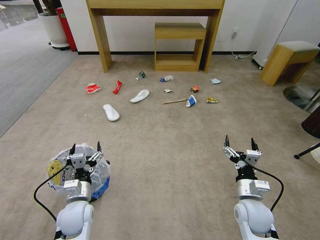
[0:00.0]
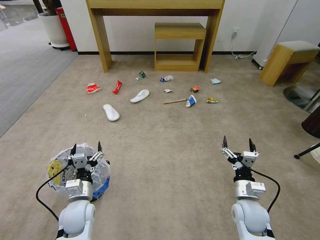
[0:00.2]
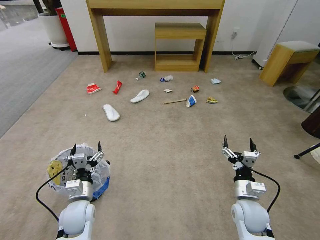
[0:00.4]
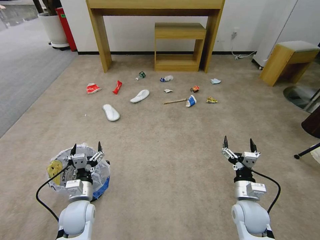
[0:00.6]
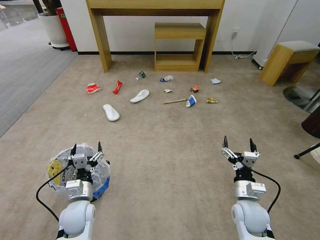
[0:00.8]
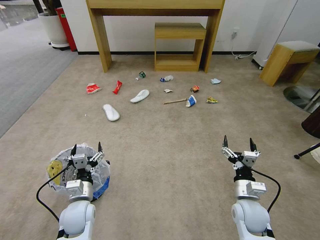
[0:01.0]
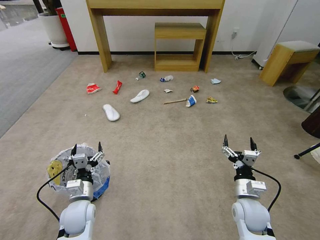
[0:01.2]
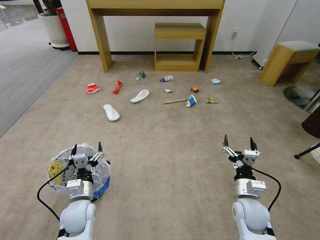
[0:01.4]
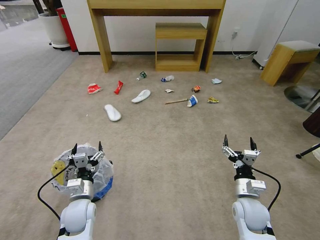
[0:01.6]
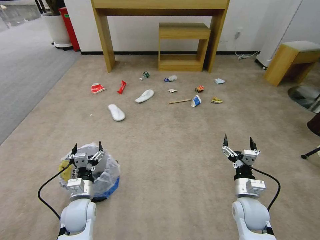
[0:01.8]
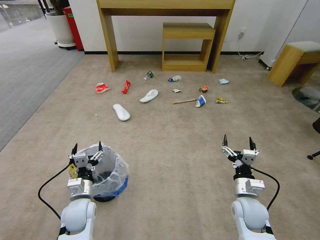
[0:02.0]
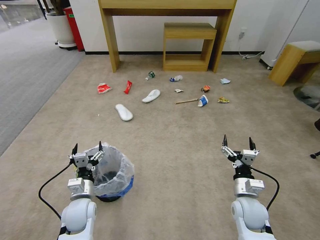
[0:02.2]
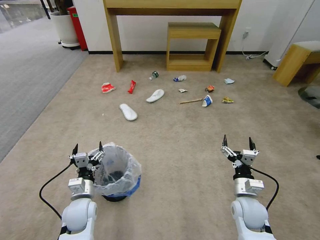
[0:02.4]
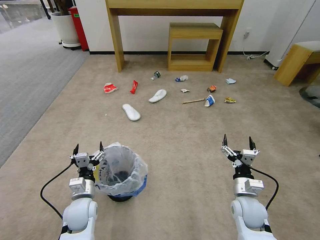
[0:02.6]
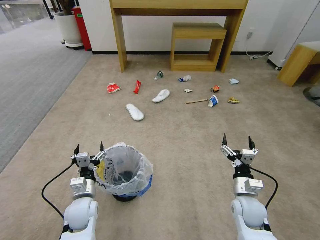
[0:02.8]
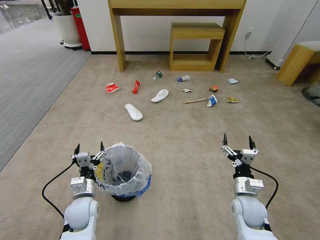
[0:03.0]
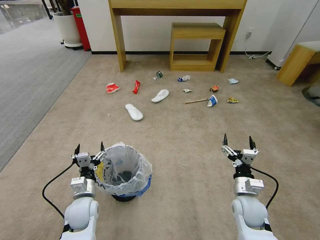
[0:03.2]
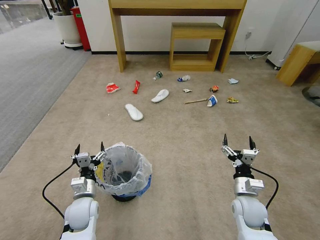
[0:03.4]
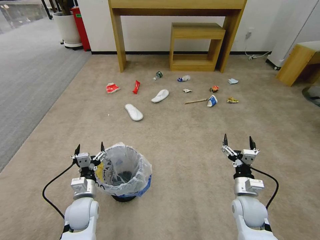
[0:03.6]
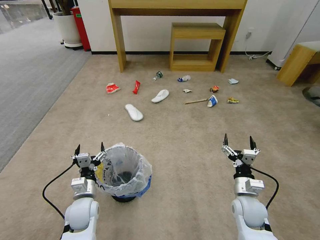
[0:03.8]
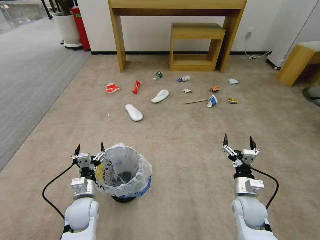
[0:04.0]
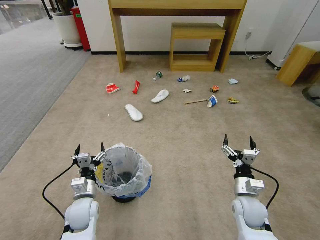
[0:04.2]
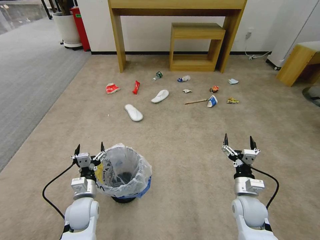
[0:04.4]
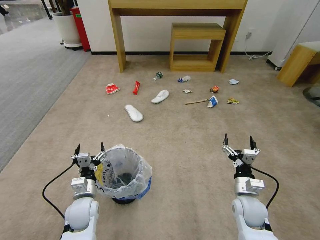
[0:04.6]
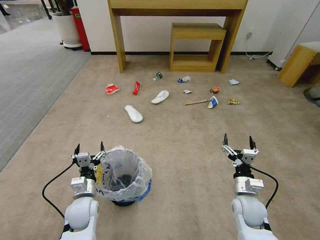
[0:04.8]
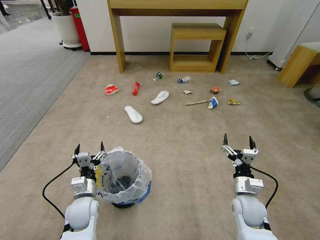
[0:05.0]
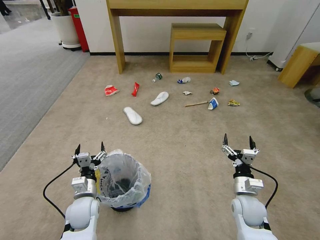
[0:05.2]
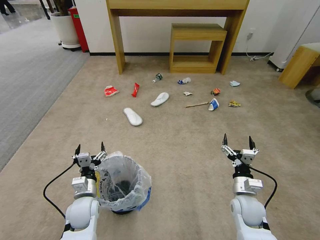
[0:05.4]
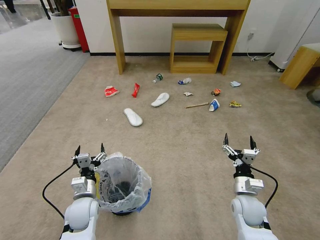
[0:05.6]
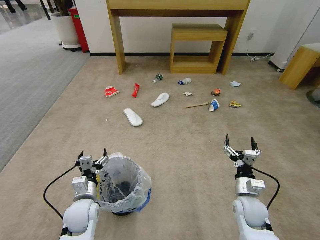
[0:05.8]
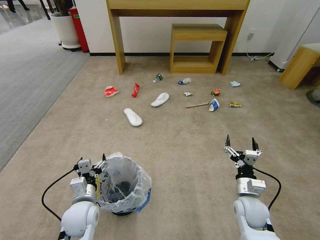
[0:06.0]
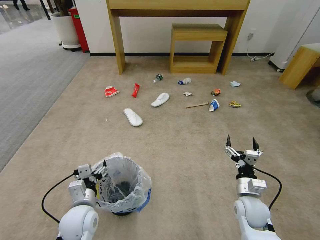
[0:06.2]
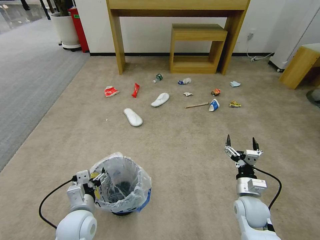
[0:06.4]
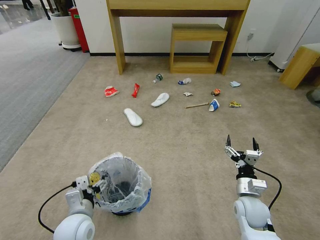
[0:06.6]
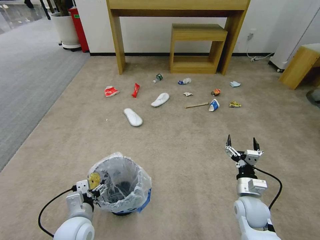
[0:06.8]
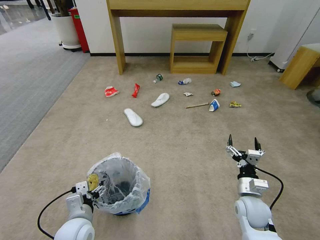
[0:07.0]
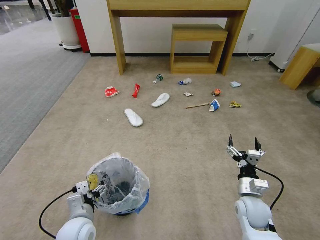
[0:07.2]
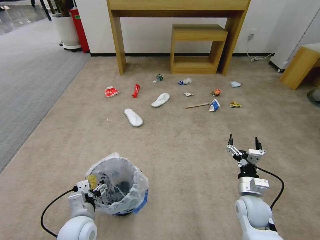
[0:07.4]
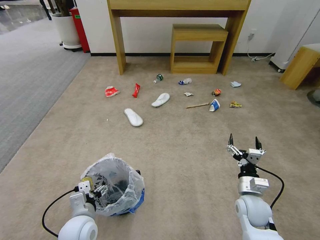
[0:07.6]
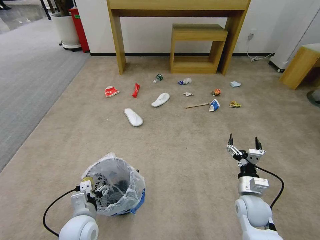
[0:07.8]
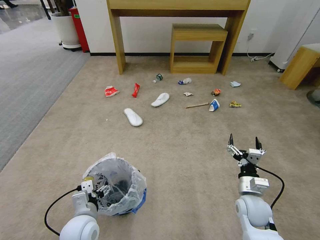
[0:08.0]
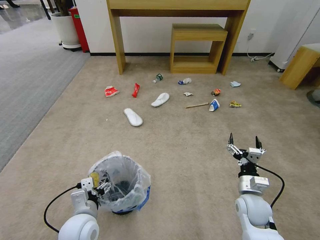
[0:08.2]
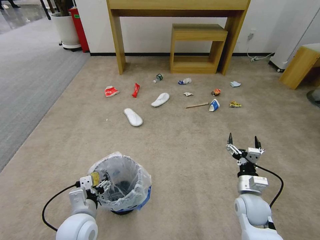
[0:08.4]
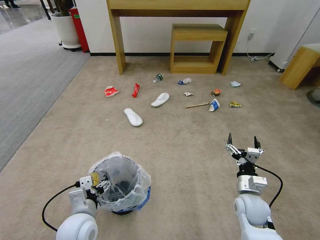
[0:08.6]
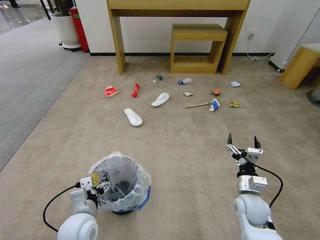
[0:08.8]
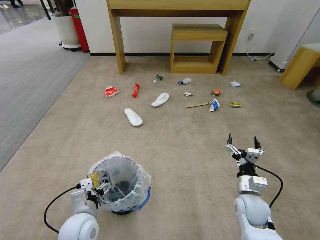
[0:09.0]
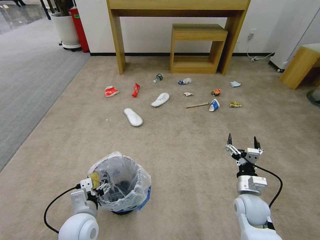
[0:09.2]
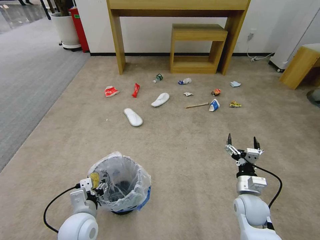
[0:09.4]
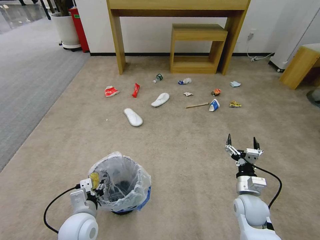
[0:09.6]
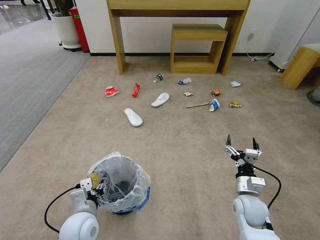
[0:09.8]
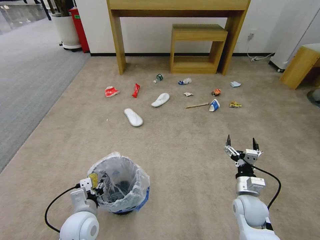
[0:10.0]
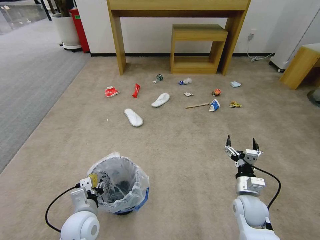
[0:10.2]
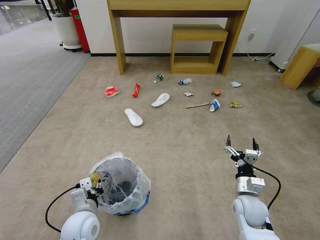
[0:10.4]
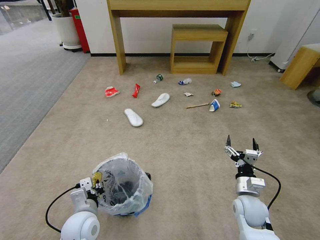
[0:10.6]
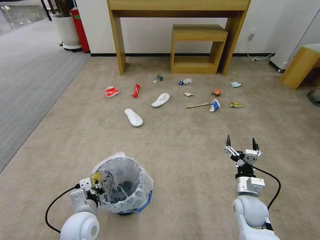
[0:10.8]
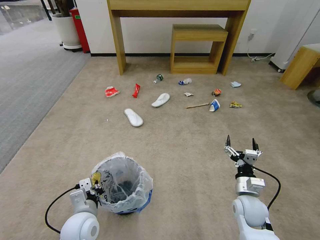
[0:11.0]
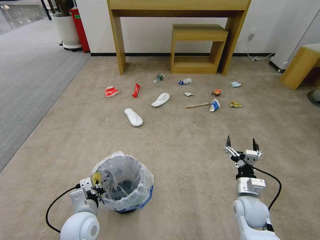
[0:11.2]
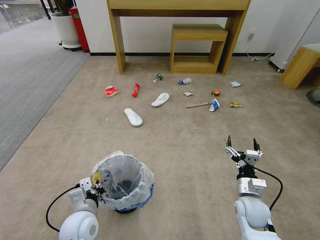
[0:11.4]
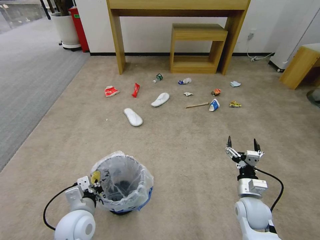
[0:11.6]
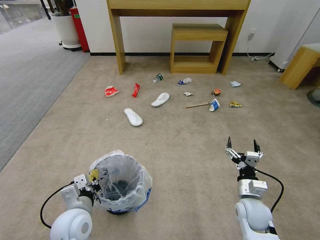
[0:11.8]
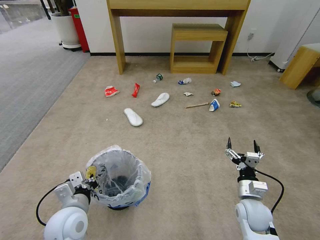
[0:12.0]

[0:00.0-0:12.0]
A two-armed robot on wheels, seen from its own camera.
Task of the whole recording: Pick up the trash bin and place the garbage on the floor into it.
0:03.0 to 0:04.4: The two grippers keep their place.
0:04.4 to 0:06.0: The grippers stay close to where they were, moving slightly.
0:07.6 to 0:09.0: The grippers move only a little.
0:09.0 to 0:10.4: The left gripper closes its fingers.
0:10.4 to 0:12.0: The left gripper moves upward, about 5 cm.

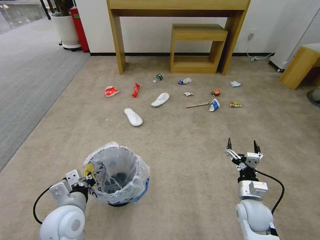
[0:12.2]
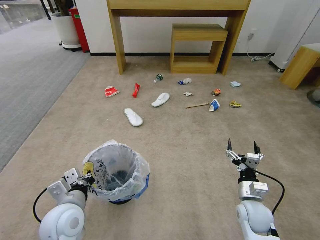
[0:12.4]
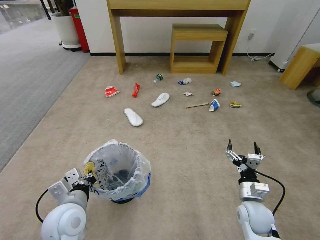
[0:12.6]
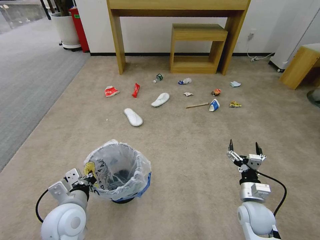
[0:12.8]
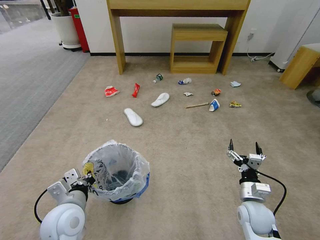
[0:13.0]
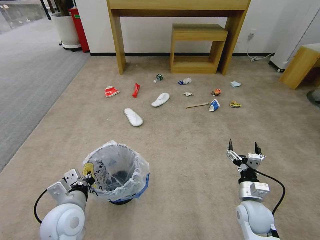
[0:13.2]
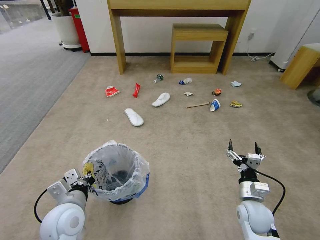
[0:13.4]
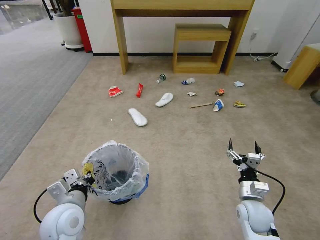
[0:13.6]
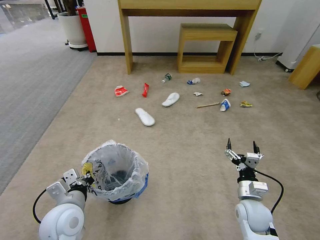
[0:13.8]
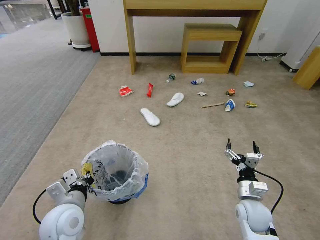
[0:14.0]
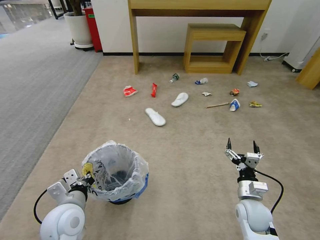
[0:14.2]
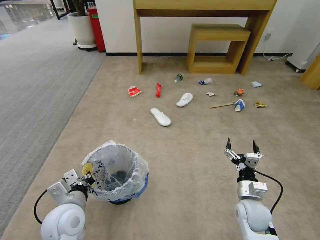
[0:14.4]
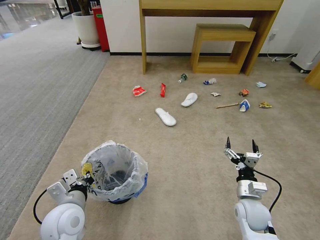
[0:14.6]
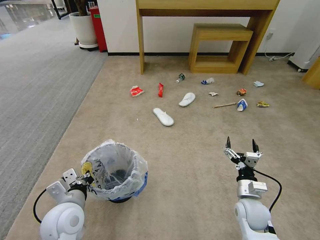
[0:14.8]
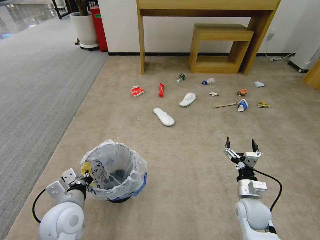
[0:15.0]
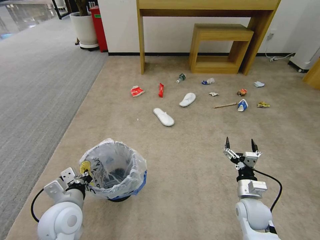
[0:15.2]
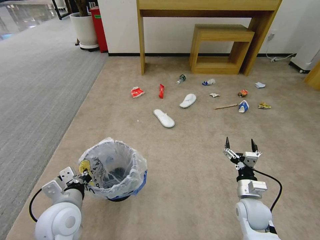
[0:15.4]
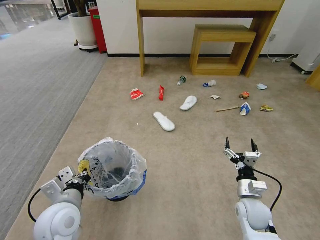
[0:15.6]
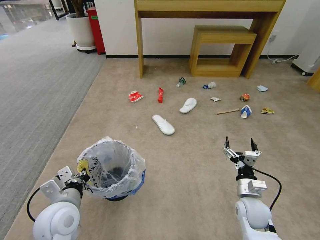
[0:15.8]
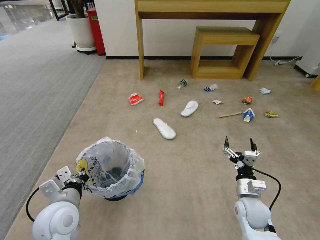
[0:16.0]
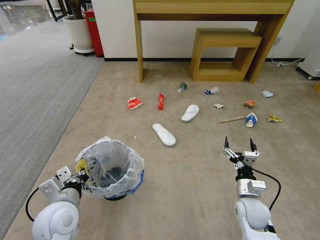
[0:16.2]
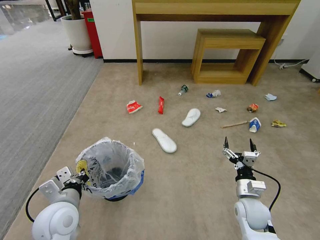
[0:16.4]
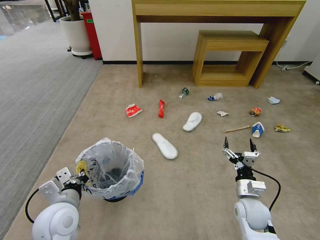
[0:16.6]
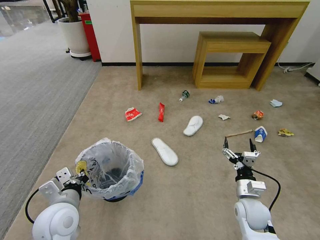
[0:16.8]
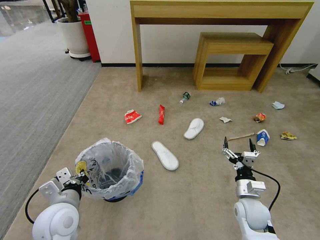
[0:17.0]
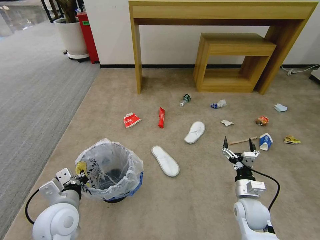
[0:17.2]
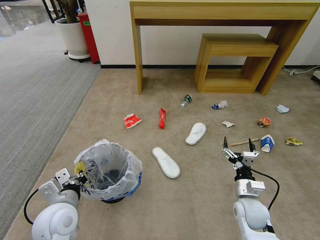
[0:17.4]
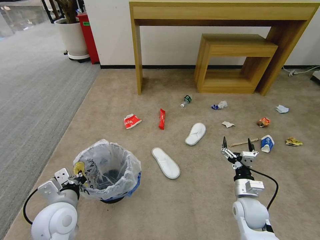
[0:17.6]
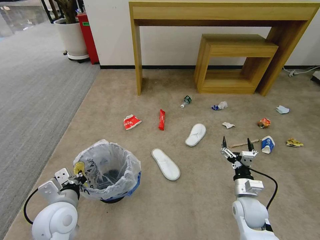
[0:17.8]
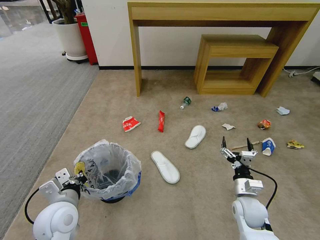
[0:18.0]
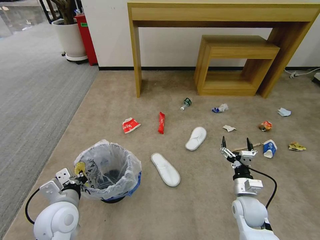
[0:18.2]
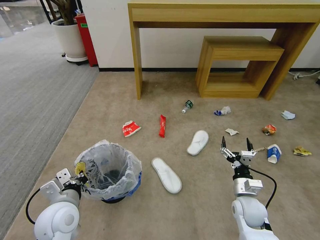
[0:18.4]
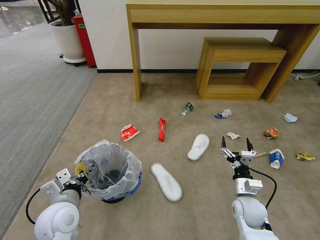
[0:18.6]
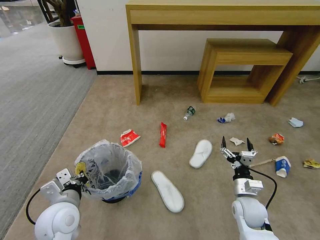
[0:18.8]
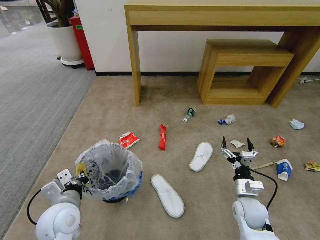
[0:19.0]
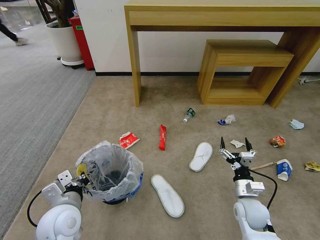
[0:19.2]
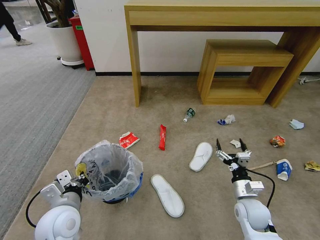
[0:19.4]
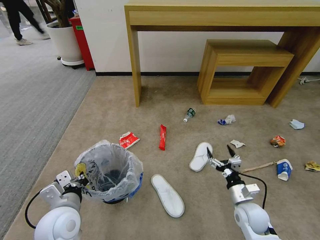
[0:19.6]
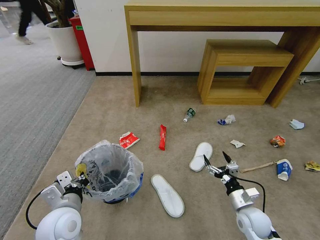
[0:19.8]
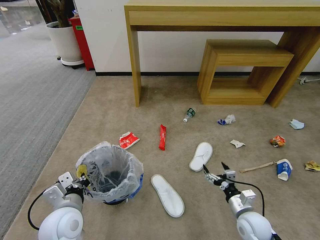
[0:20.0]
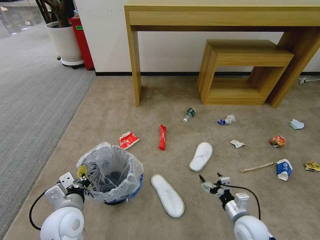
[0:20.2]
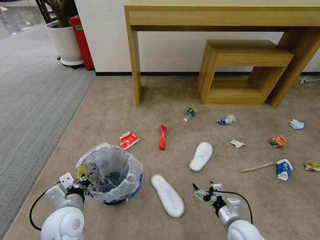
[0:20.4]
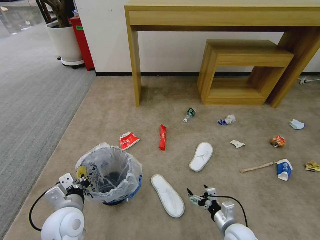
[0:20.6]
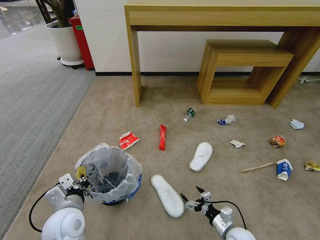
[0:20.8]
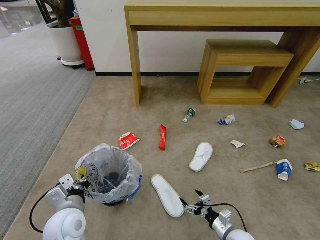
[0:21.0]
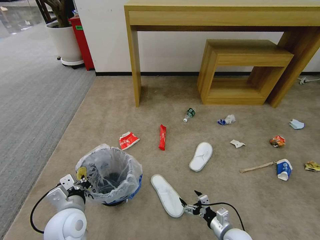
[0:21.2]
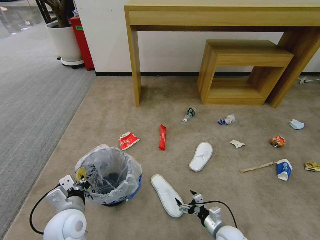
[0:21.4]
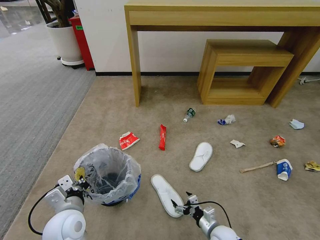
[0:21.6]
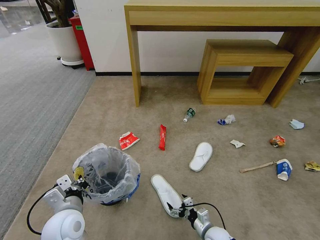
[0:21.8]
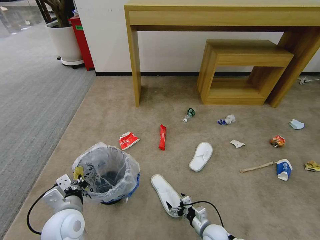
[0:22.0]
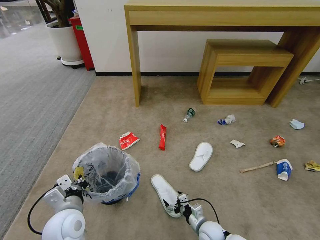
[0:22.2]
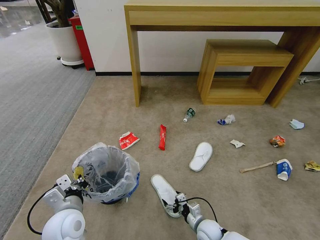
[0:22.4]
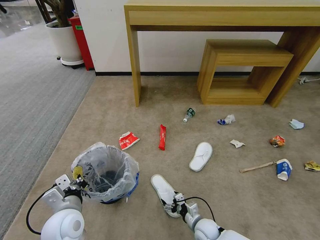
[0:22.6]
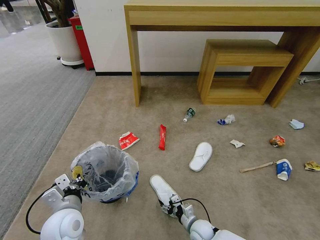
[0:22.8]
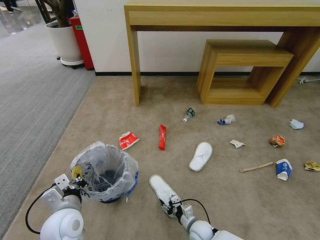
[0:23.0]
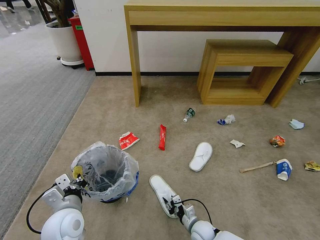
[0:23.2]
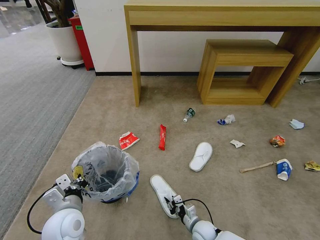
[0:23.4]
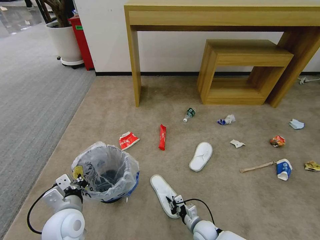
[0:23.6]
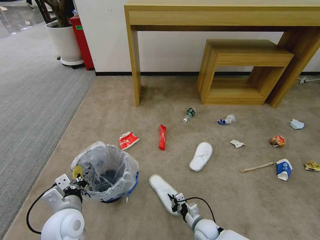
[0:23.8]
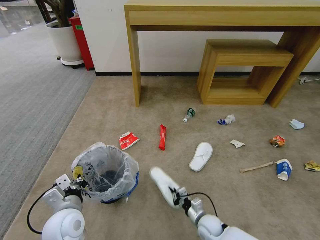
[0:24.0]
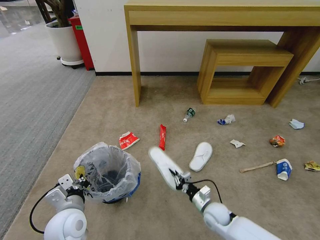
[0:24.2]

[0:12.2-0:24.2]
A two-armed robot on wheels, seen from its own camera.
Task of the whole recording: Pick up the trash bin and place the garbage on the floor into it.
0:12.2 to 0:13.8: Neither gripper changes place.
0:13.8 to 0:15.2: The two grippers keep their place.
0:18.2 to 0:19.8: The right gripper ends up some 5 cm from where it was.
0:19.8 to 0:21.2: The right gripper heads downward, covering roughly 10 cm.
0:21.2 to 0:22.6: The right gripper moves to the left and downward, roughly 10 cm.
0:22.6 to 0:24.2: The right gripper changes place by approximately 5 cm, and closes.
